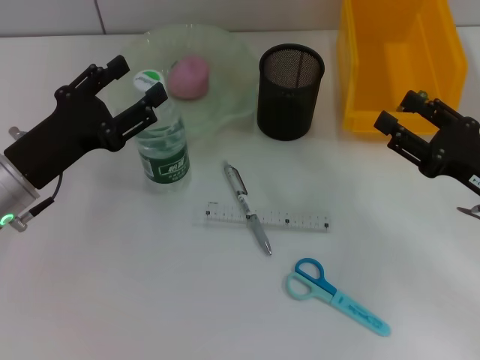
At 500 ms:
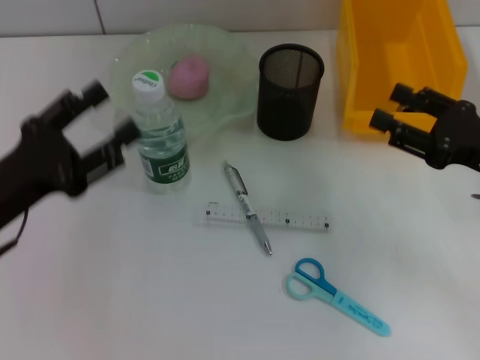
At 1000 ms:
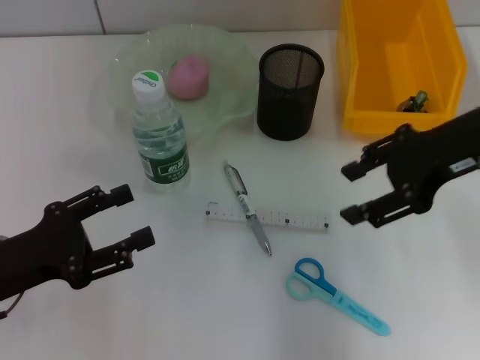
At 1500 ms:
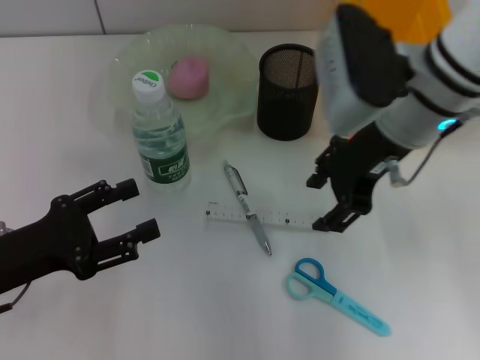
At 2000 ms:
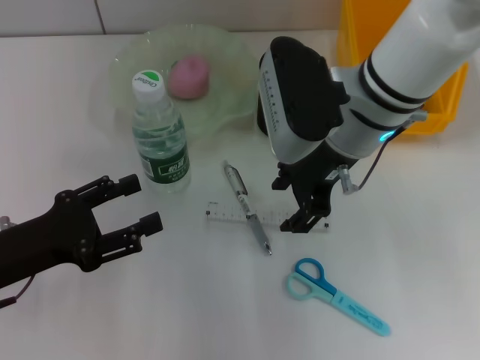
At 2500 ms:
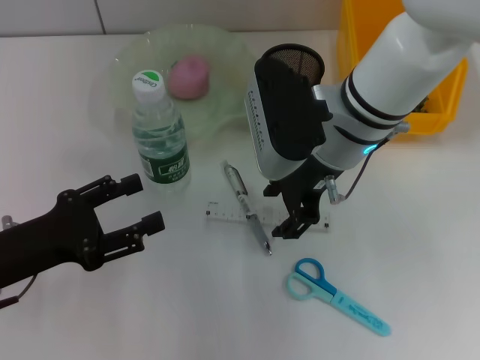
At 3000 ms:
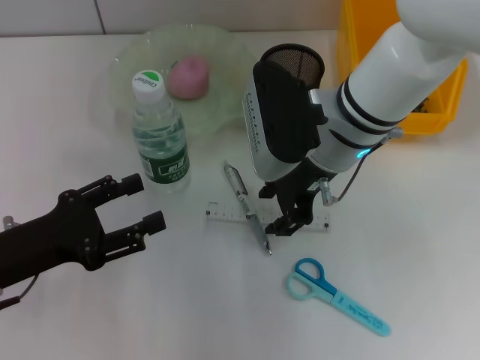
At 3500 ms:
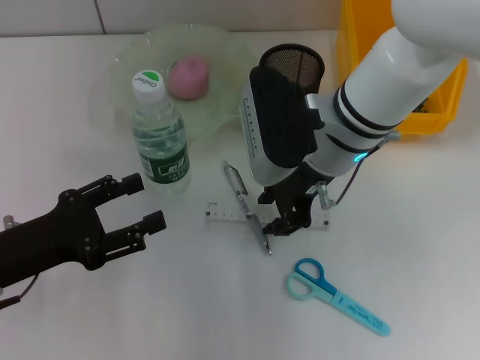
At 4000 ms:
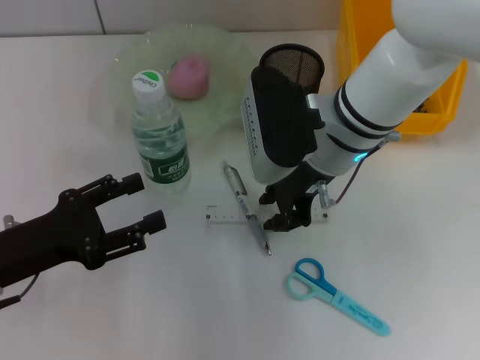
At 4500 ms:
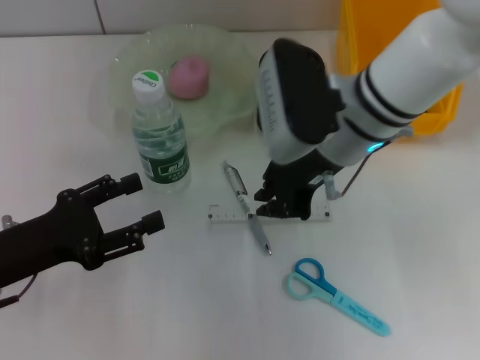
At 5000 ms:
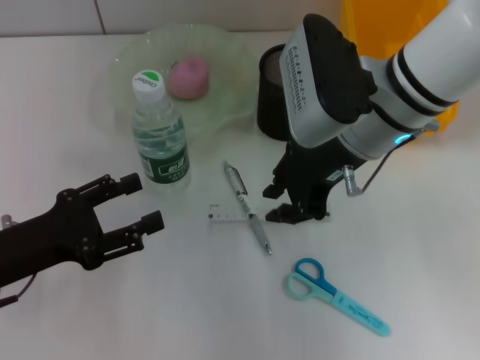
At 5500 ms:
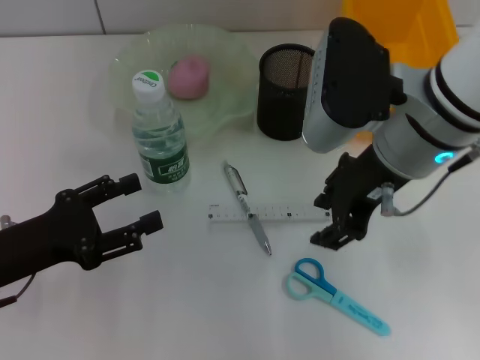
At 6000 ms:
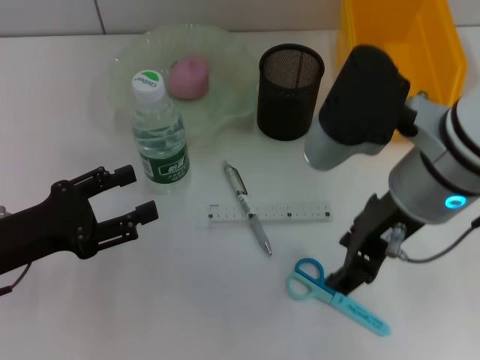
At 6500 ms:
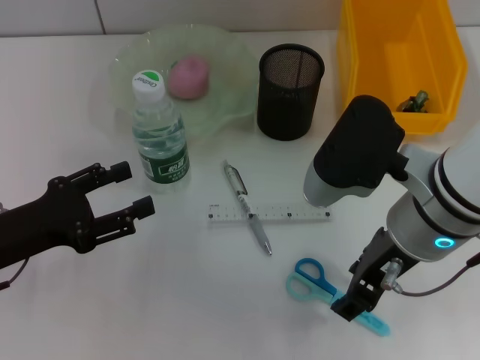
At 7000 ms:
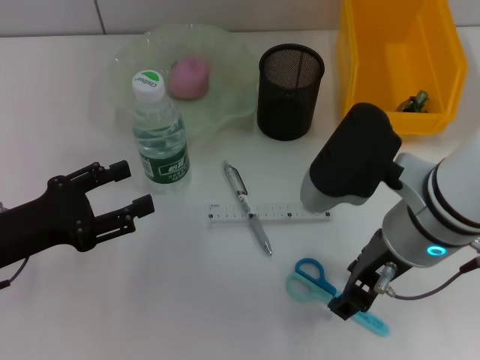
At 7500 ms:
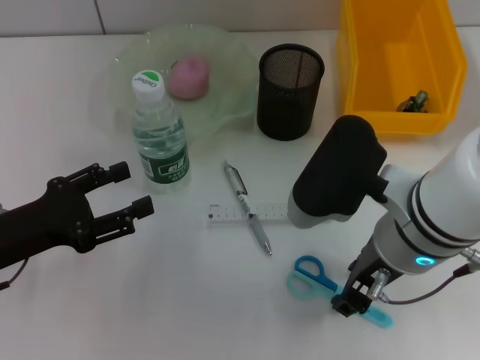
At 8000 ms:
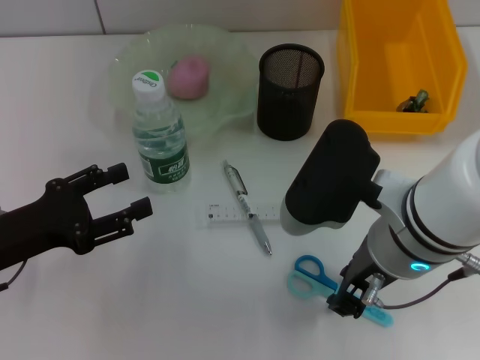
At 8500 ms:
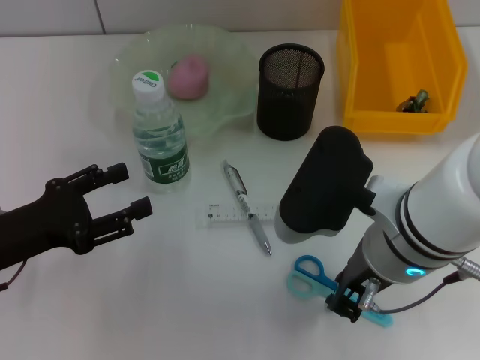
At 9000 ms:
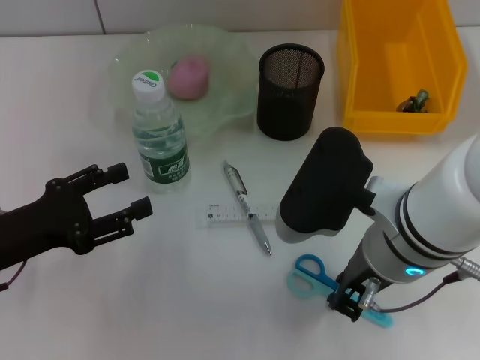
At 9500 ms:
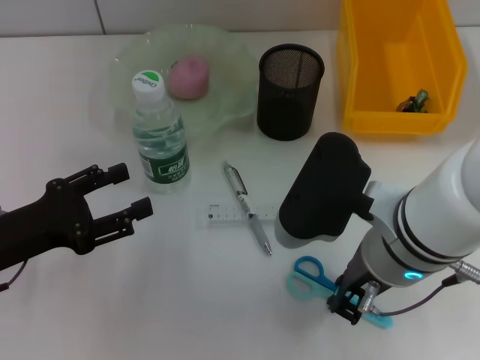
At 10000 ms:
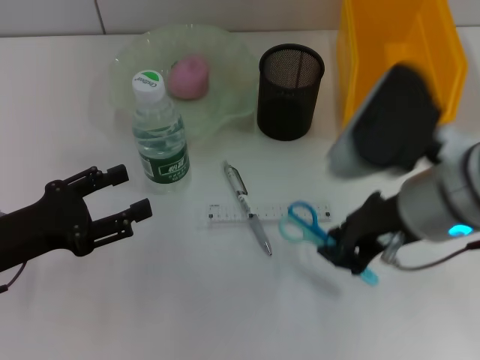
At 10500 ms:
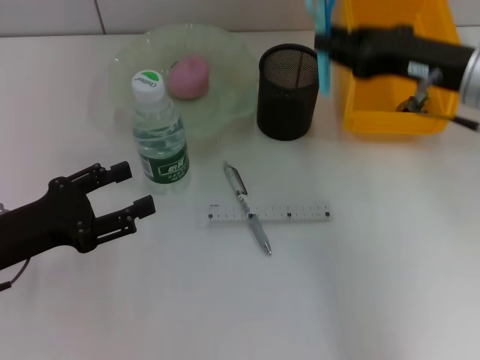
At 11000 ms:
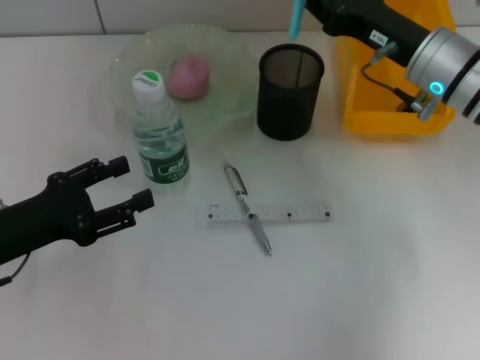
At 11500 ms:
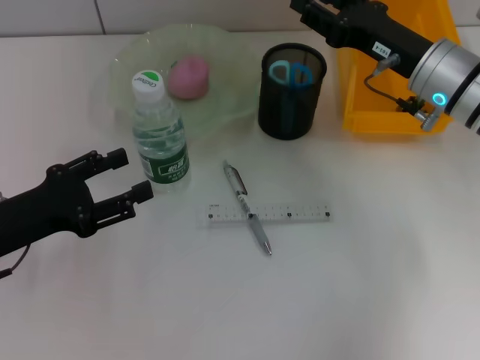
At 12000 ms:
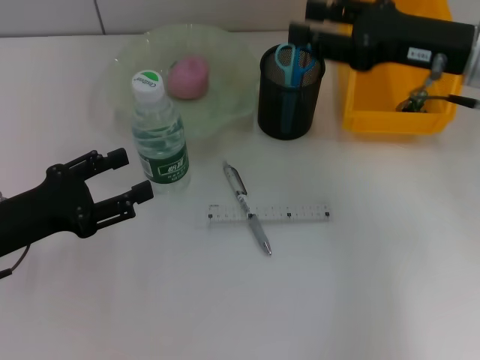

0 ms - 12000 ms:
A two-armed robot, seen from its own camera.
Step, 1000 ms - 9000 ms: Grab the blue scissors with the right hand.
0 ms - 2000 ms: The right gripper is displaced to the left, upward and forward by about 25 cm. The left gripper heads backward, covering approximately 5 cm, and opens up.
2000 ms - 4000 ms: The right gripper closes its fingers.
4000 ms - 6000 ms: The right gripper shifts approximately 10 cm backward and upward, and opens.
6000 ms - 8000 ms: The right gripper changes place by approximately 5 cm.
10000 ms - 12000 ms: The right gripper moves forward and to the right, approximately 15 cm, and opens up.

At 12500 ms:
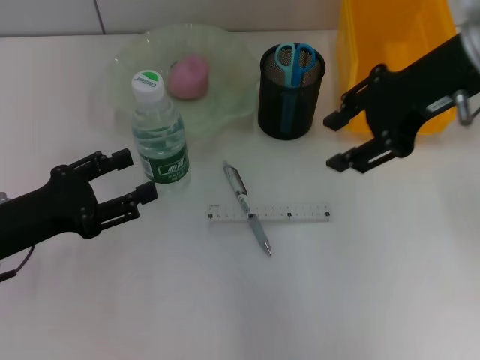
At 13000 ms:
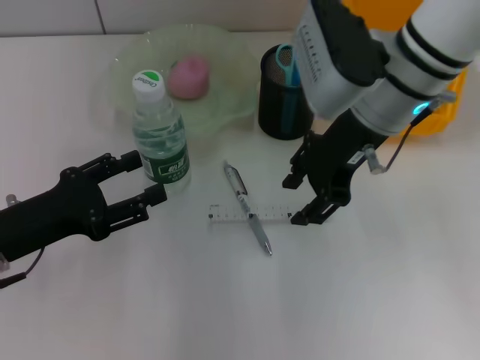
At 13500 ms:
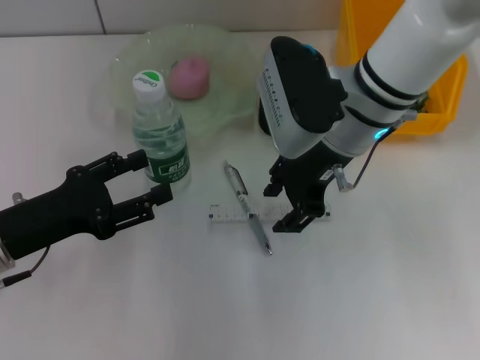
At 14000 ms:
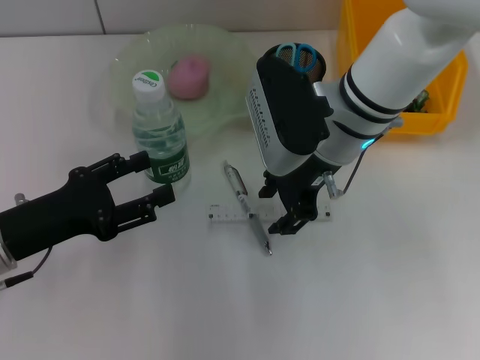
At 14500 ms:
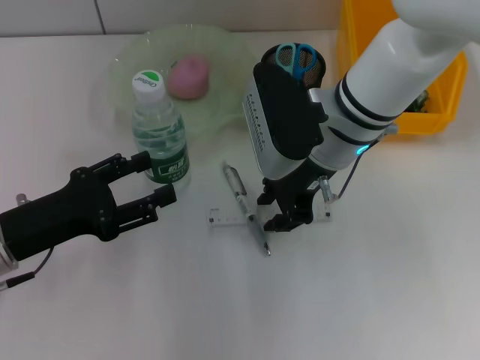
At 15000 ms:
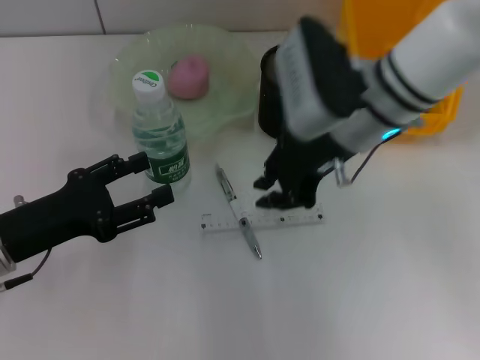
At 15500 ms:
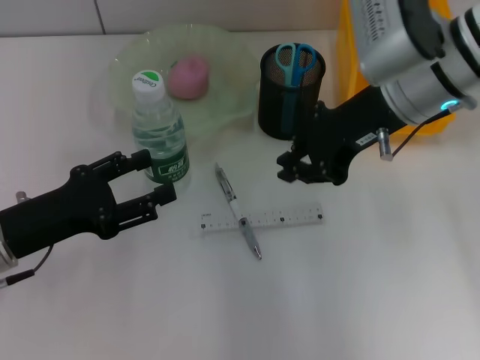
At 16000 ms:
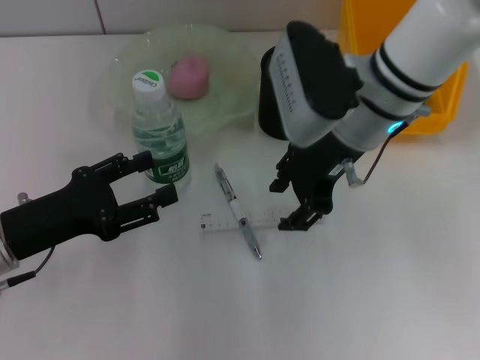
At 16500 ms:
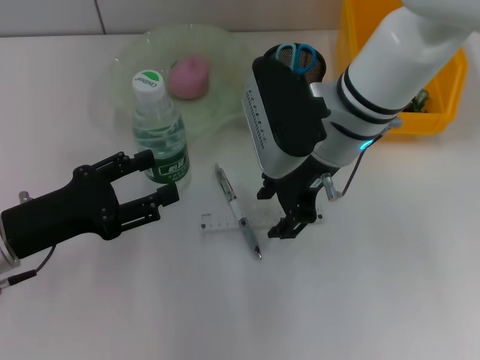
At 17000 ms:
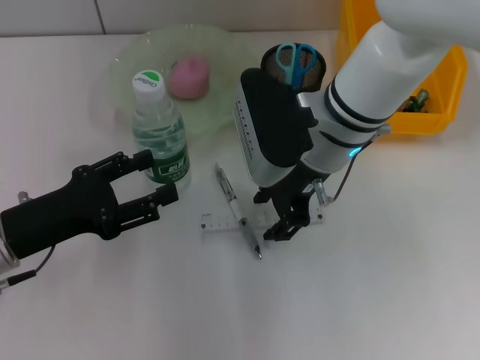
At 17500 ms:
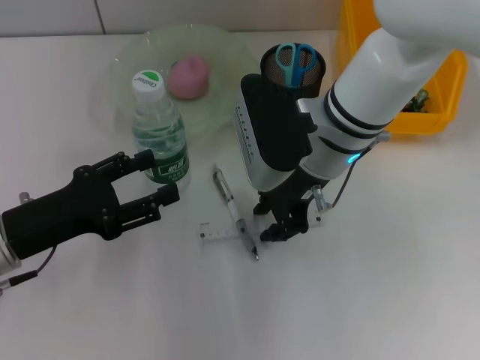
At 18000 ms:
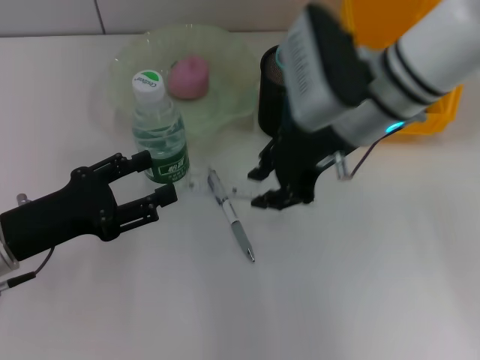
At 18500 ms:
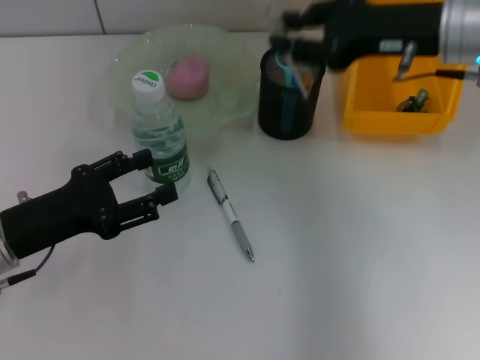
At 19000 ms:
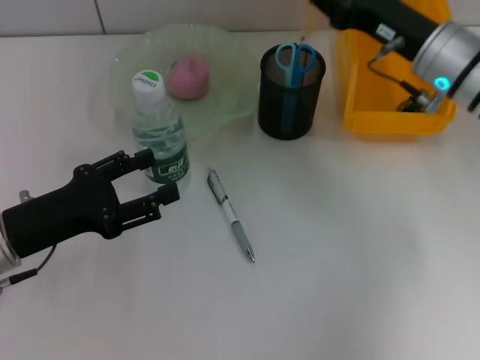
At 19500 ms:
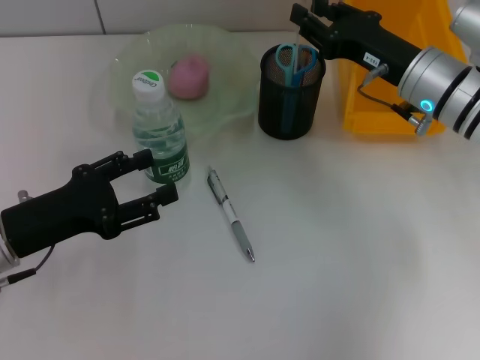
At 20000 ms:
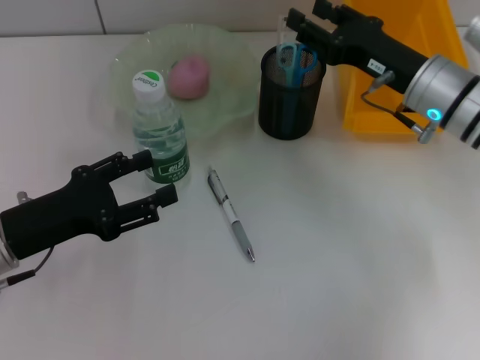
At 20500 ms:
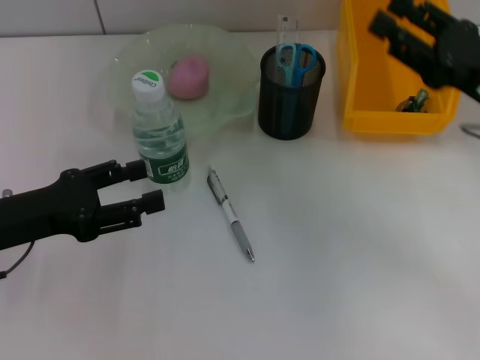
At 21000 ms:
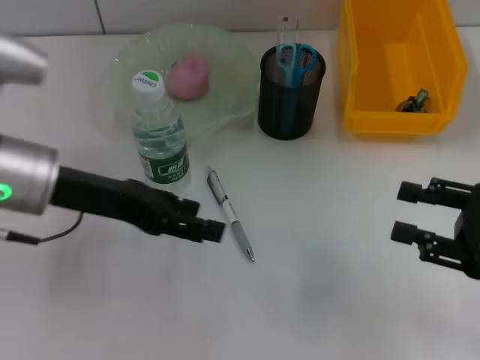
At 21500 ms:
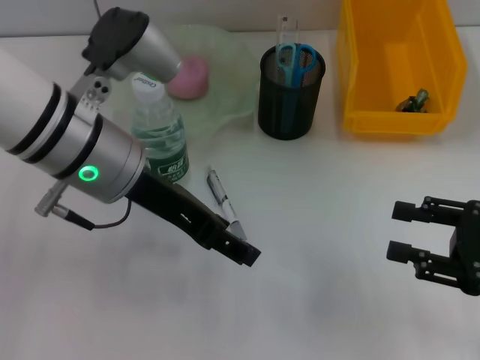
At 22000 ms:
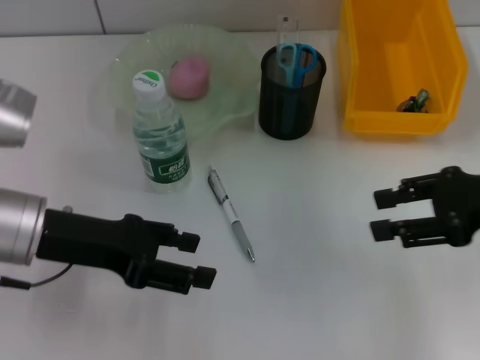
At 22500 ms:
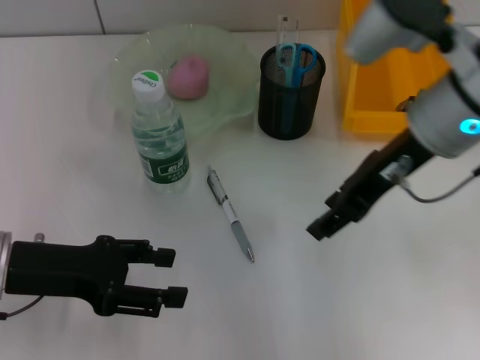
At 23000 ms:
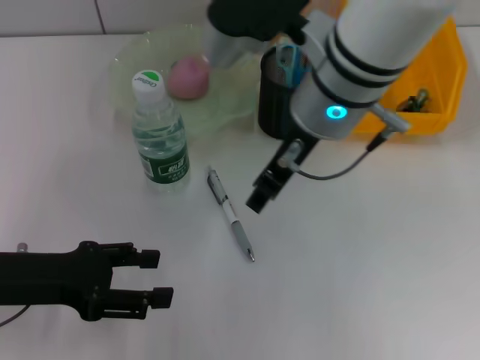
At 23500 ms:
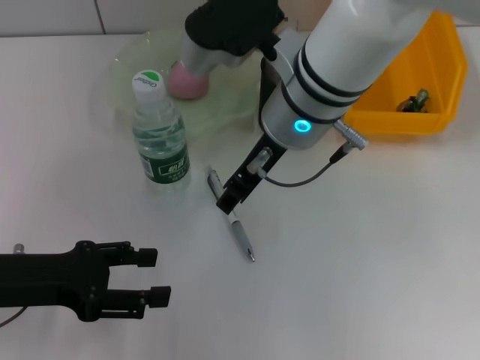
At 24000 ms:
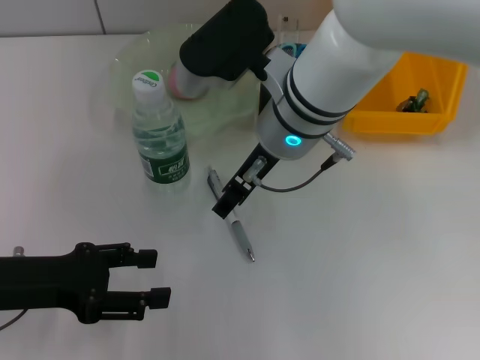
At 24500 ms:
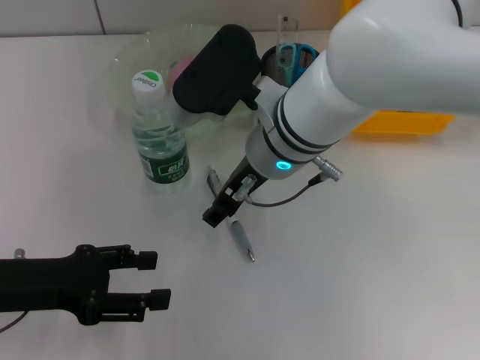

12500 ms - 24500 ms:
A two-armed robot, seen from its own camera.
Step, 12500 ms - 17000 ms: Grab the ruler with the right hand.
Step, 18000 ms - 20000 ms: Place the ruler into the pen holder with the right hand.
12500 ms - 14500 ms: The right gripper goes some 15 cm downward and to the left.
14500 ms - 16500 ms: The right gripper closes and opens again.
16500 ms - 18500 ms: The right gripper moves to the right and upward, approximately 15 cm.
18500 ms - 20500 ms: The right gripper shifts approximately 10 cm backward, downward and to the right.
20500 ms - 22500 ms: The left gripper reaches some 15 cm to the right, then returns. Meanwhile the right gripper heads to the left and upward, covering some 15 cm.
22500 ms - 24500 ms: The right gripper travels to the left and downward by roughly 15 cm.

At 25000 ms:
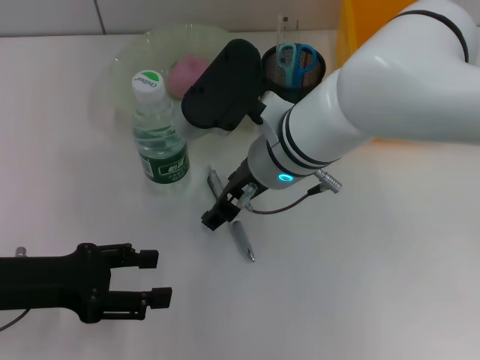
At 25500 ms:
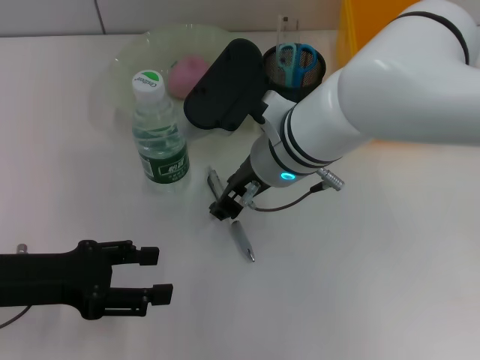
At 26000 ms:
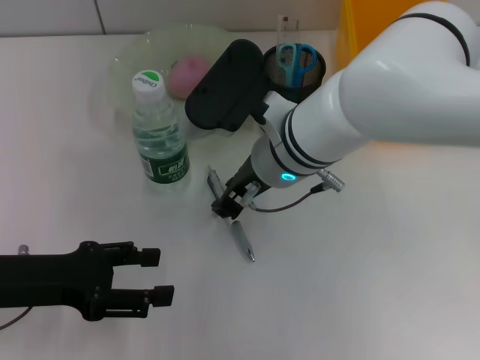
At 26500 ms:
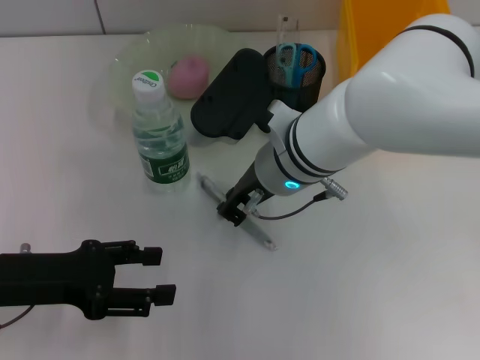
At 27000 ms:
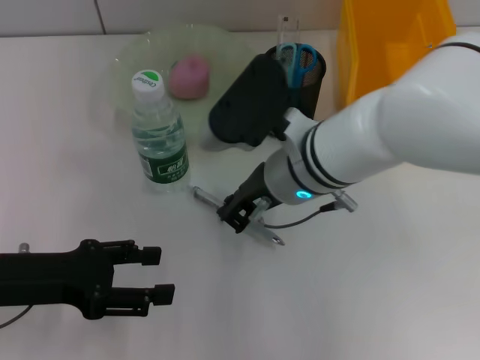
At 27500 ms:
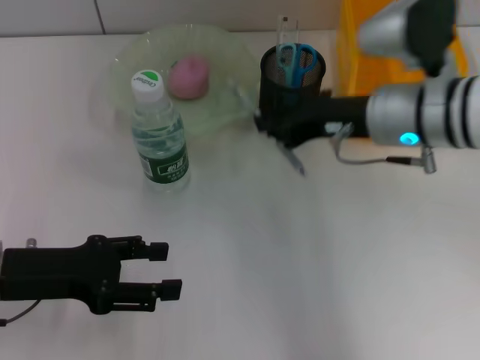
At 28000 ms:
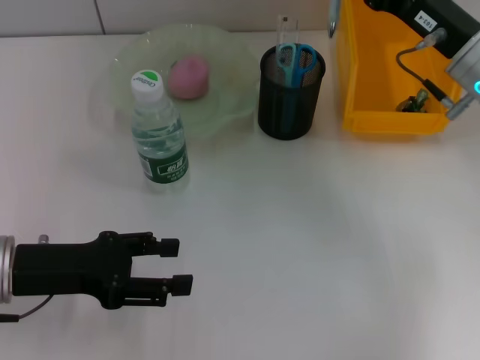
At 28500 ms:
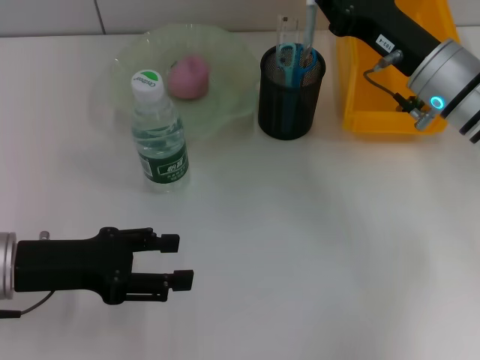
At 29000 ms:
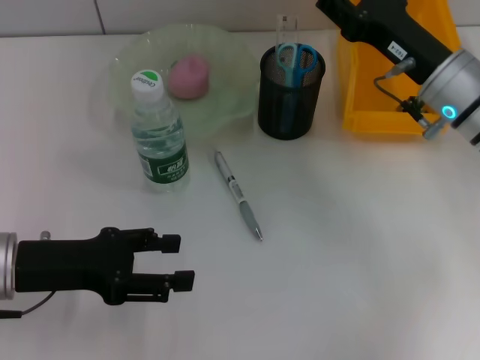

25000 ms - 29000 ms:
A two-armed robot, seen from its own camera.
25000 ms - 27000 ms: The right gripper closes its fingers.
27000 ms - 29000 ms: The right gripper travels to the right by approximately 15 cm, and opens.
